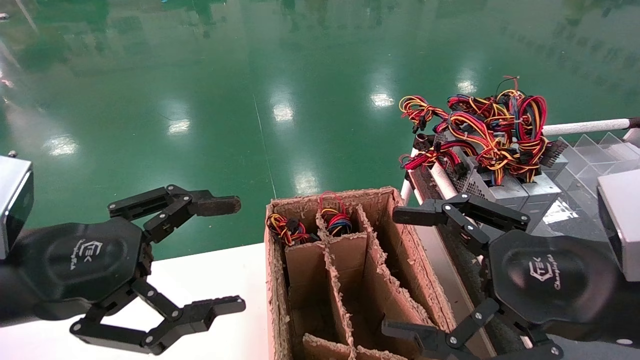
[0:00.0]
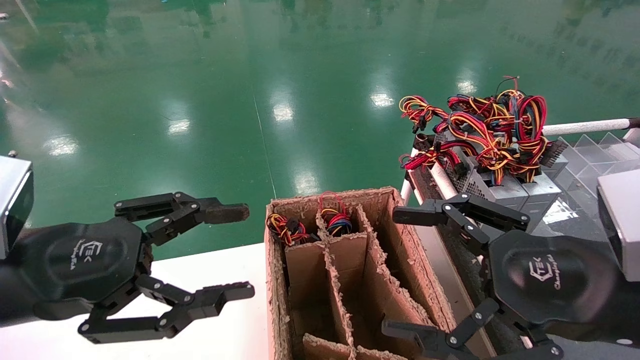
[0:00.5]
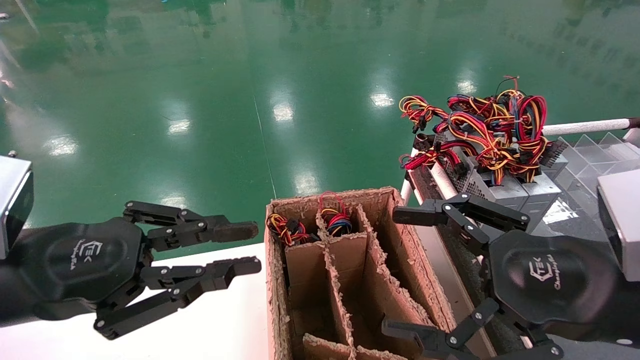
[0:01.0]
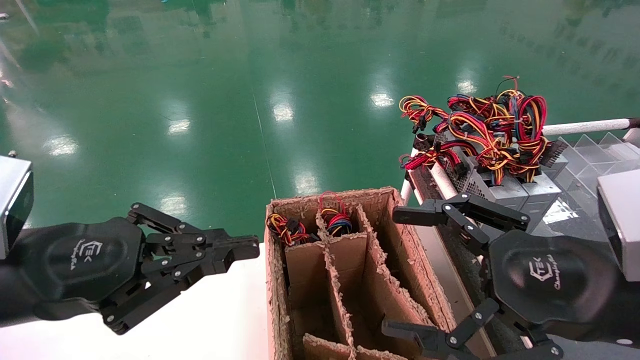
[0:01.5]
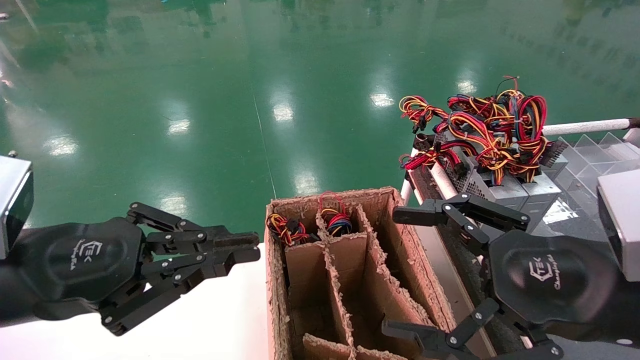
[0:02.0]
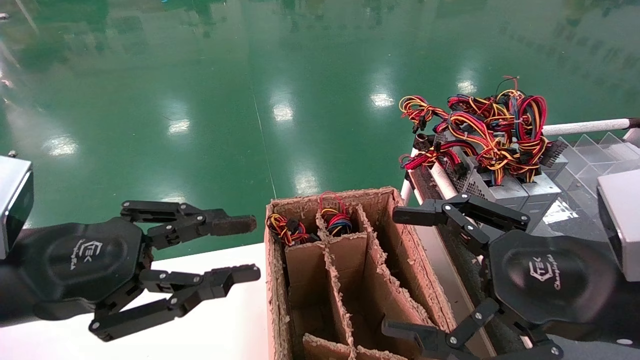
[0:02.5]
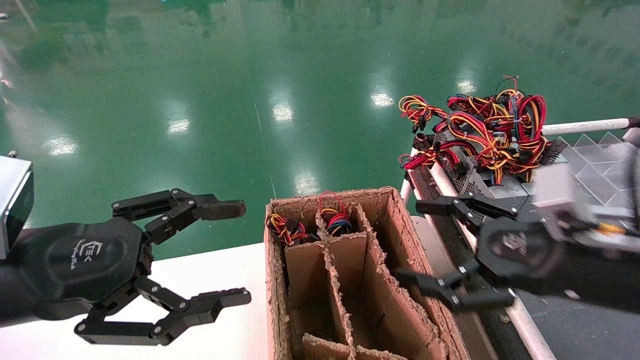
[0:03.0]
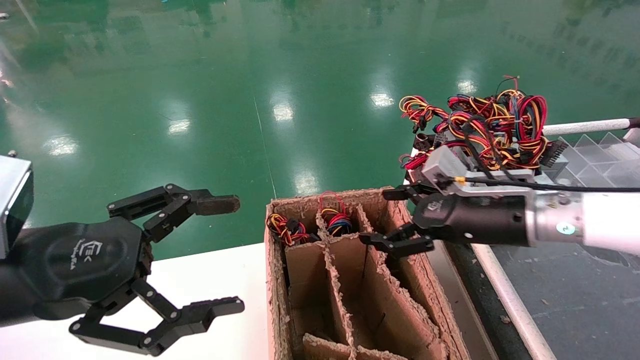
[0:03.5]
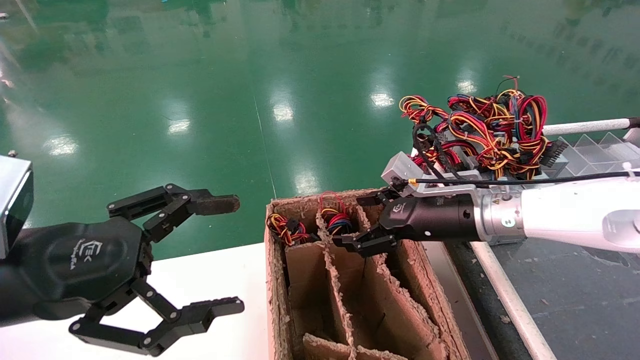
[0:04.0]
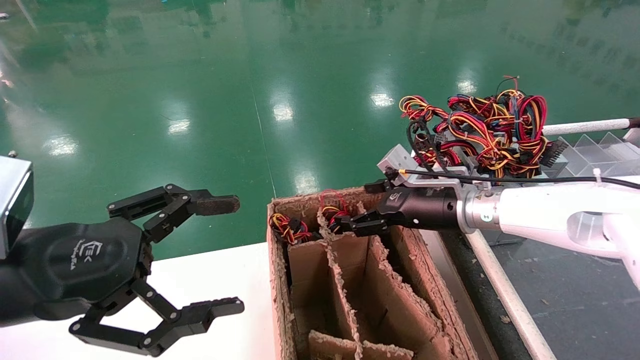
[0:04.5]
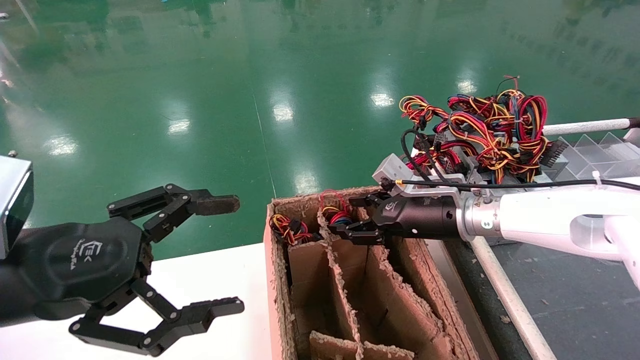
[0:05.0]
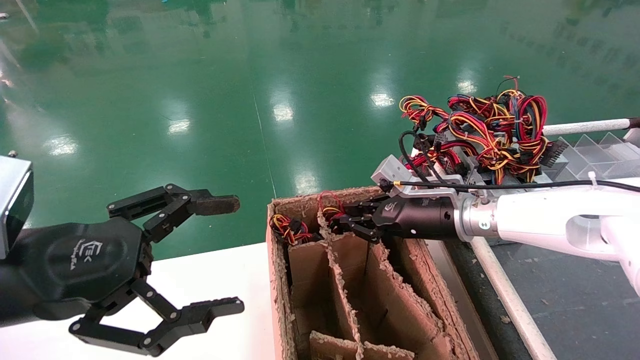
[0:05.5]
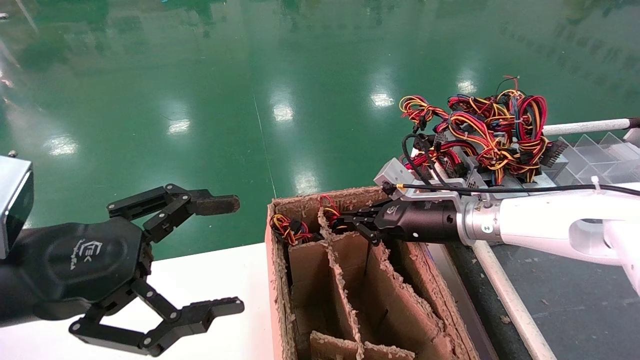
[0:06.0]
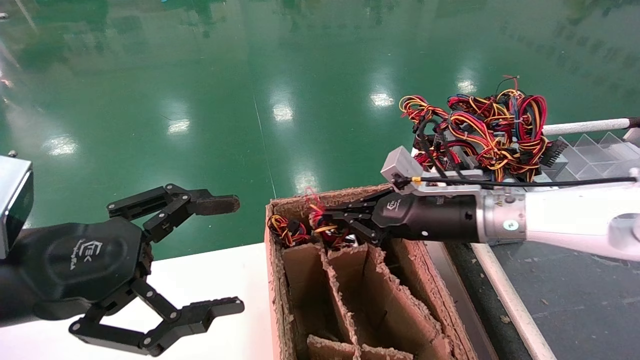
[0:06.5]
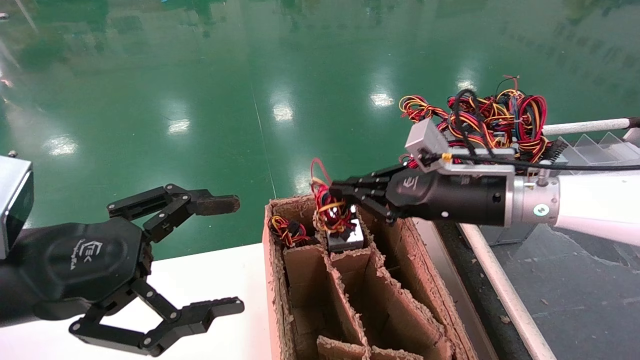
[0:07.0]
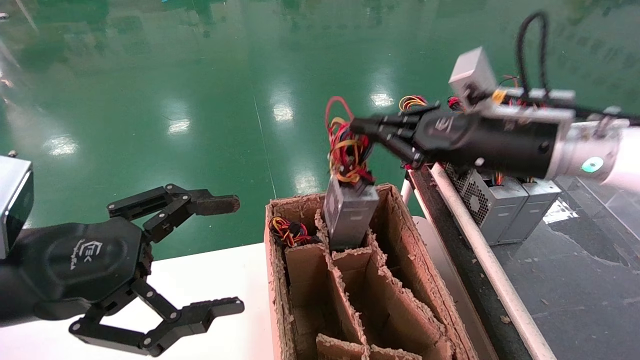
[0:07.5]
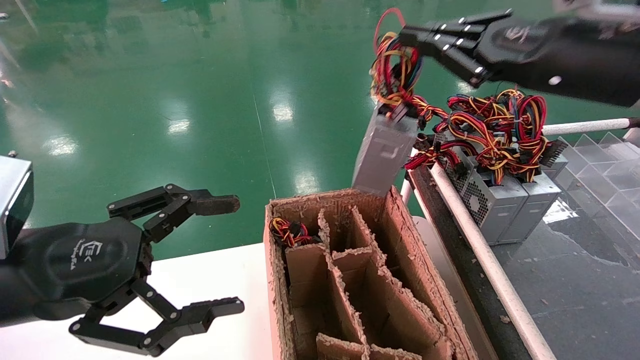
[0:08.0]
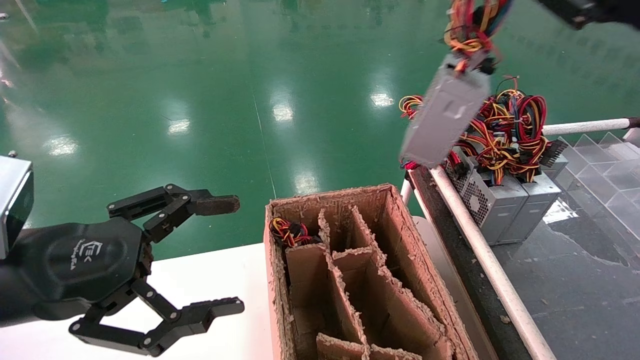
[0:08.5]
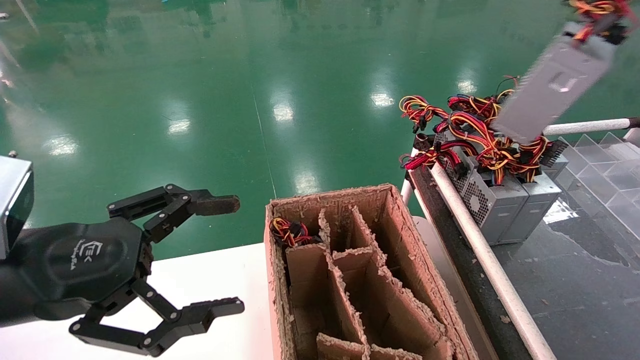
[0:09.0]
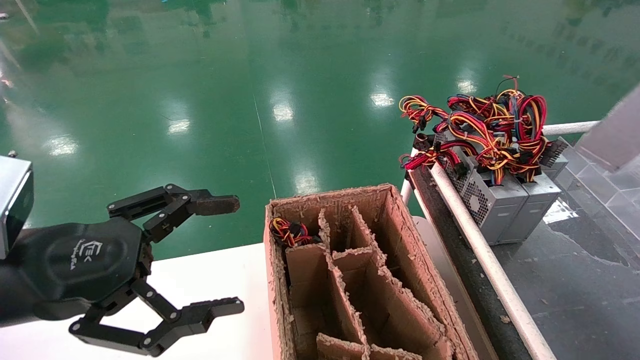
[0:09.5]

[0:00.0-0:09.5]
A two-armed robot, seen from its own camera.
Step, 0:01.0 to 0:05.5: Grab and lift the power supply from the large box.
0:00.0 to 0:02.0: The left gripper closes up.
0:02.0 to 0:04.0: The right gripper travels forward by about 20 cm, while the left gripper opens.
0:04.0 to 0:05.5: The right gripper closes.
0:05.5 to 0:07.5: The right gripper moves upward, backward and to the right, some 15 cm.
0:07.5 to 0:09.5: The right gripper shifts approximately 35 cm to the right and backward.

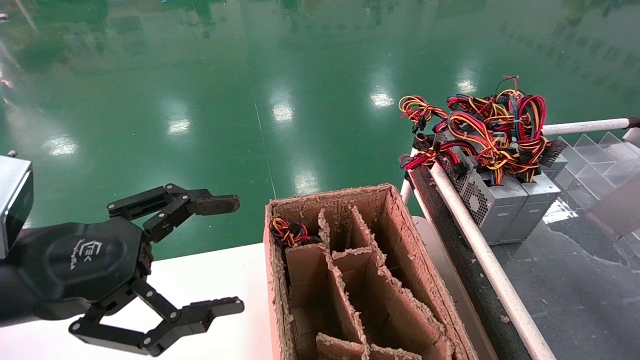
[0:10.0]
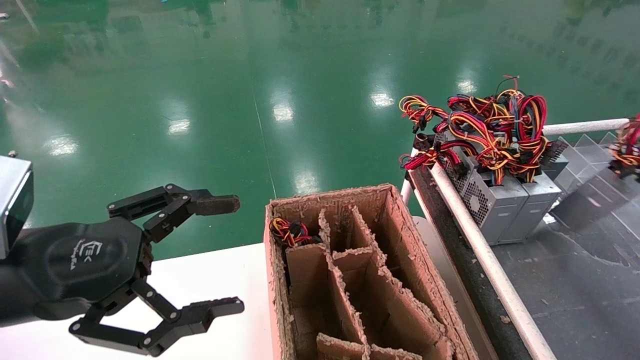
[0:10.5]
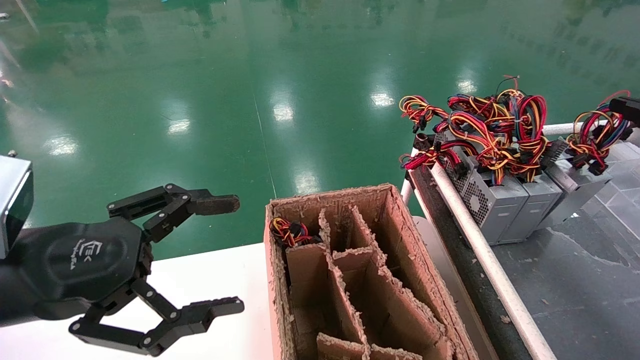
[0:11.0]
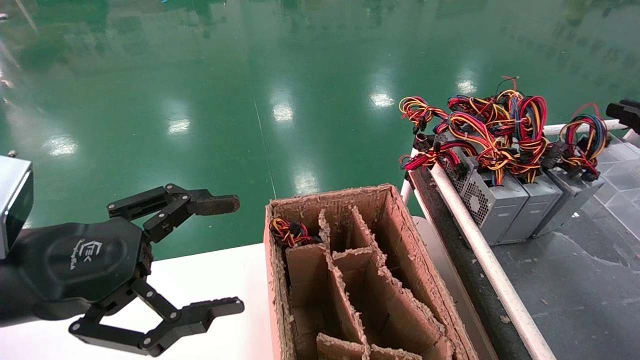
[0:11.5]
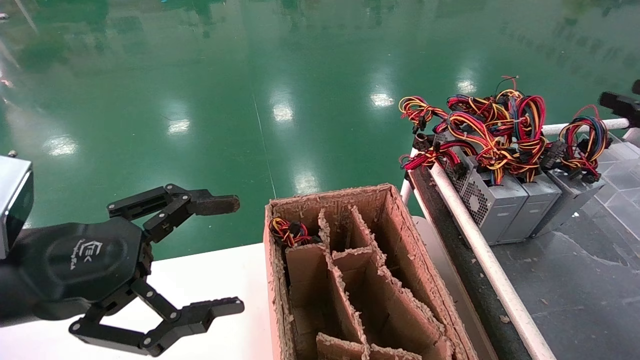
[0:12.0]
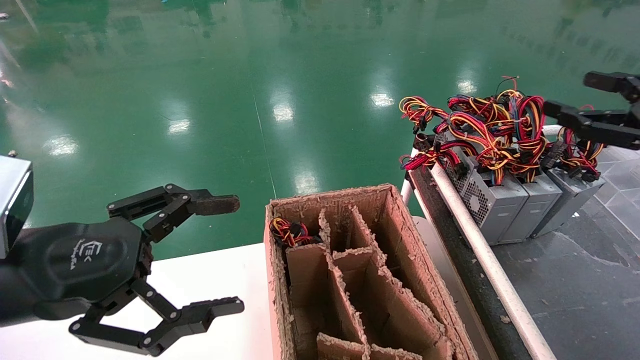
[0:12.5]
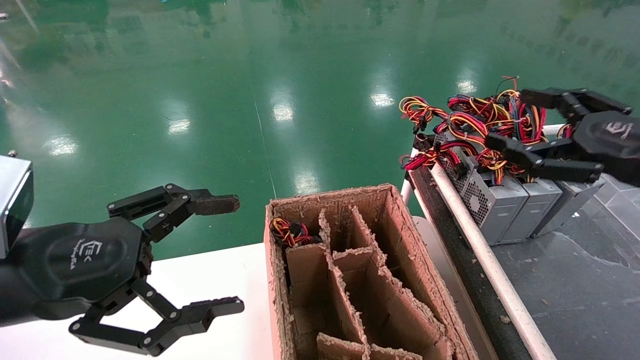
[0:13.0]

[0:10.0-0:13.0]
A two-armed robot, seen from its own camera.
0:10.0 to 0:11.5: The right gripper travels forward by approximately 10 cm.
0:11.5 to 0:13.0: The right gripper moves to the left, approximately 15 cm, and opens.

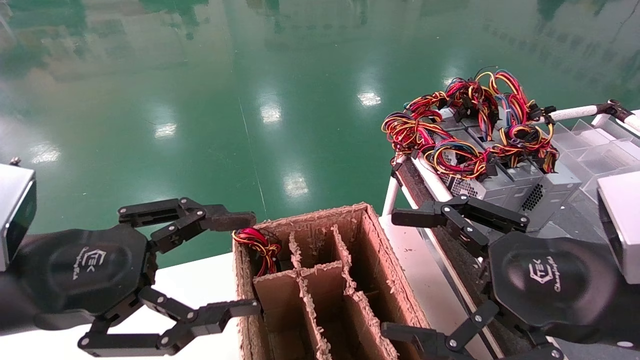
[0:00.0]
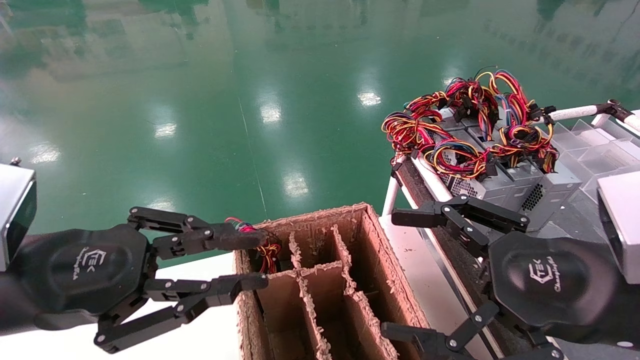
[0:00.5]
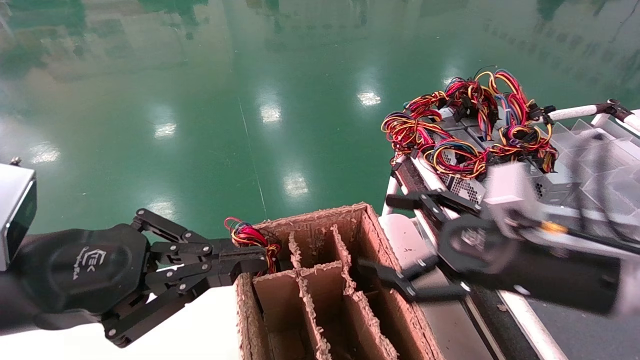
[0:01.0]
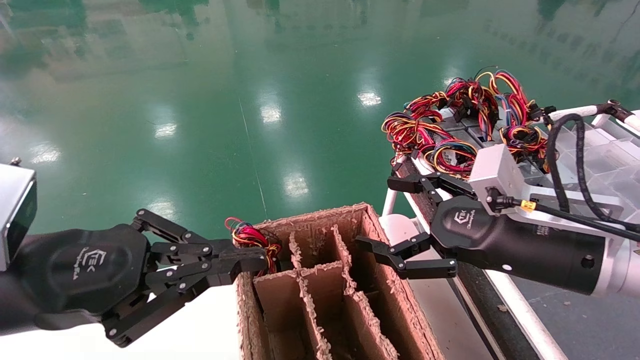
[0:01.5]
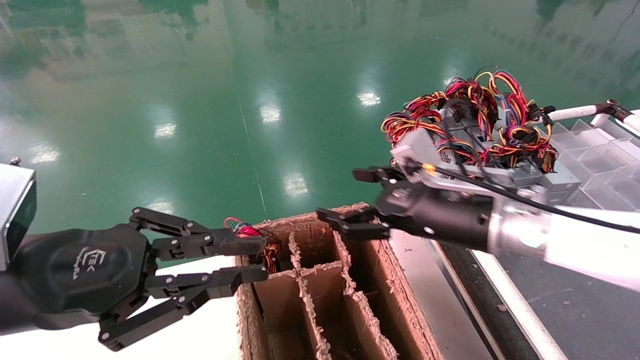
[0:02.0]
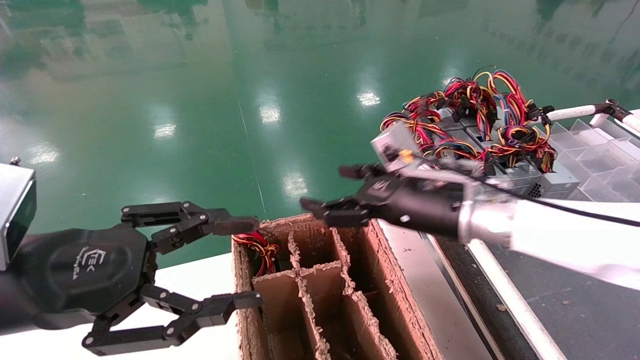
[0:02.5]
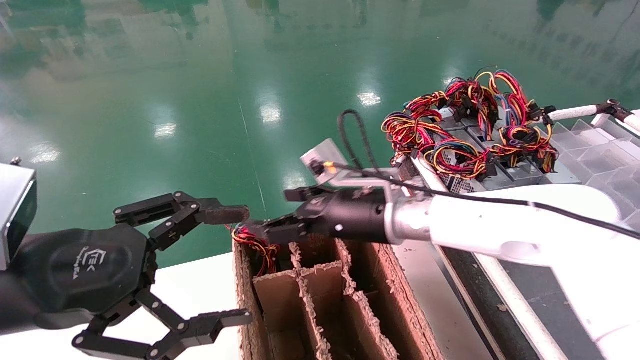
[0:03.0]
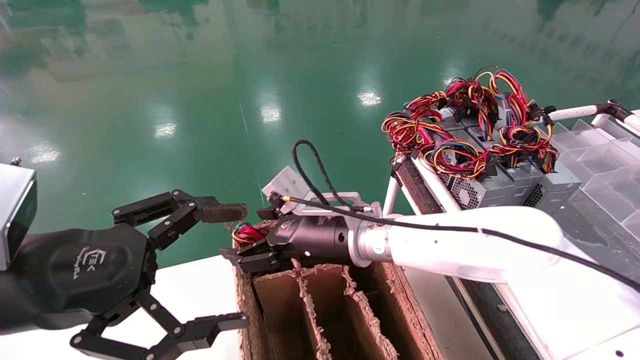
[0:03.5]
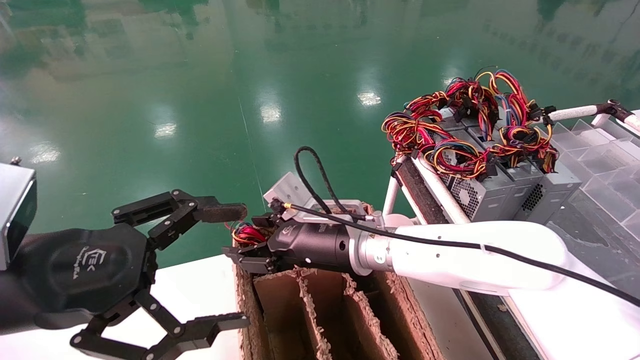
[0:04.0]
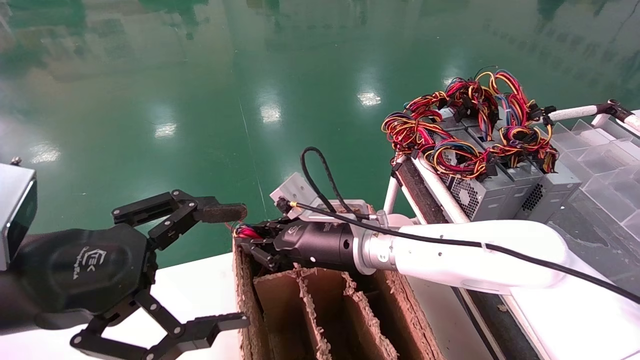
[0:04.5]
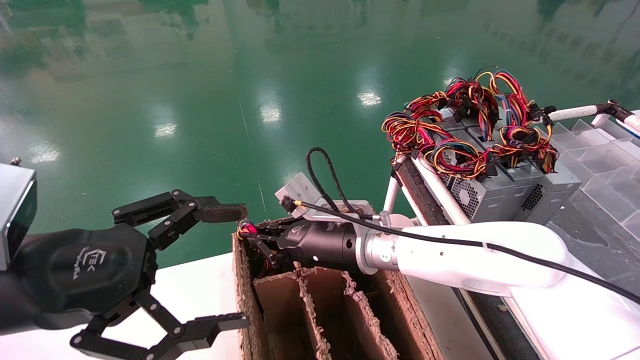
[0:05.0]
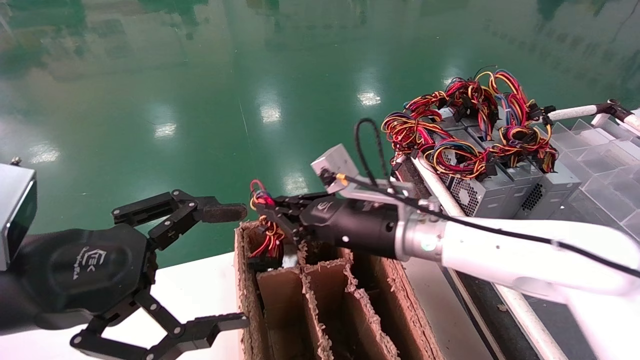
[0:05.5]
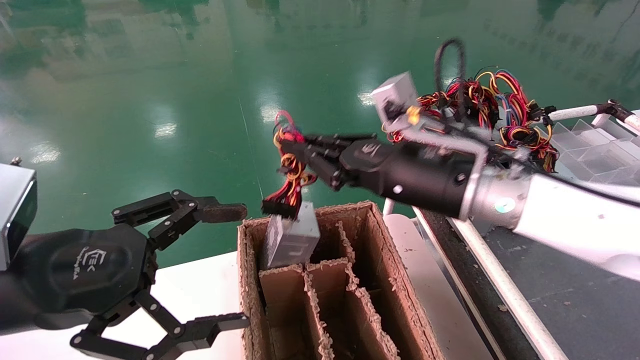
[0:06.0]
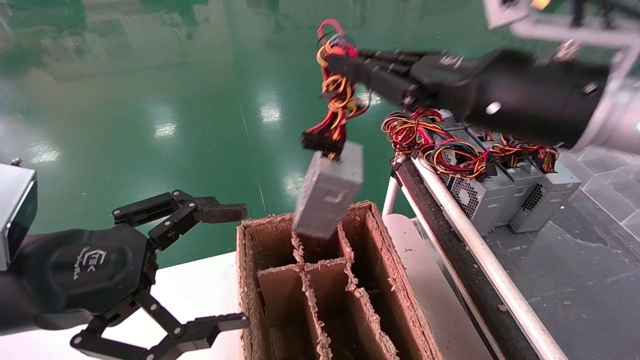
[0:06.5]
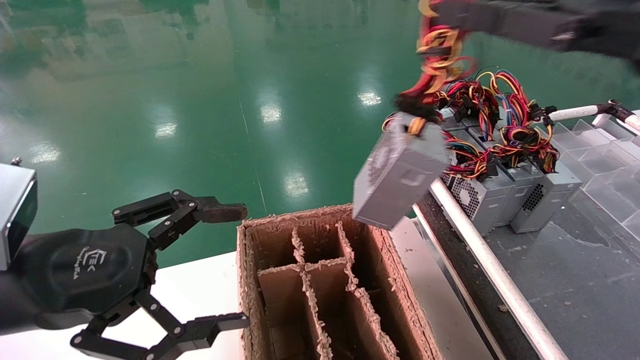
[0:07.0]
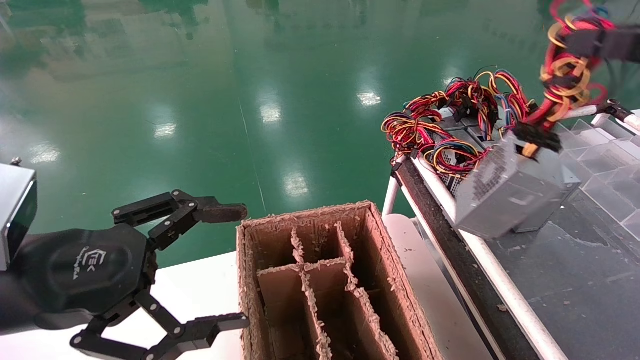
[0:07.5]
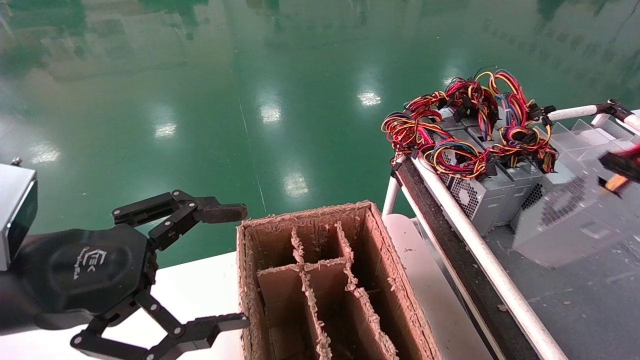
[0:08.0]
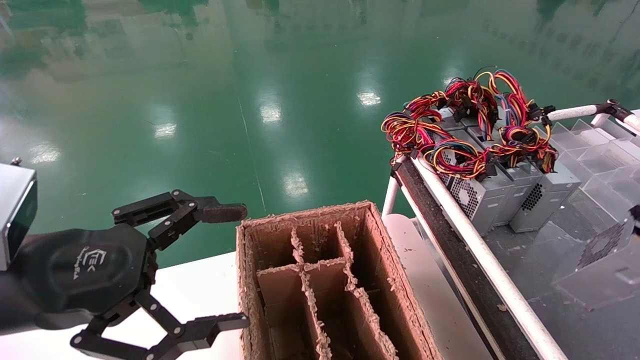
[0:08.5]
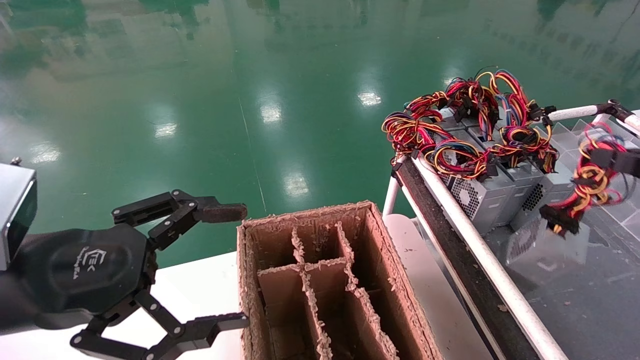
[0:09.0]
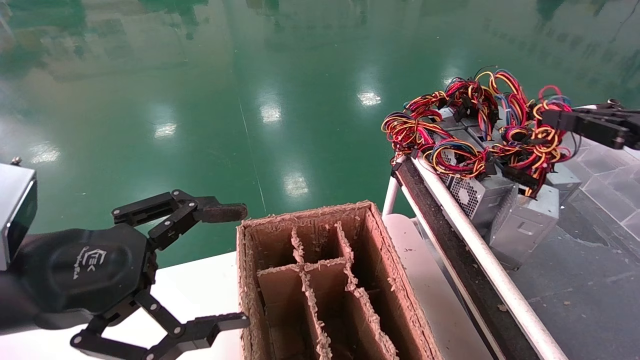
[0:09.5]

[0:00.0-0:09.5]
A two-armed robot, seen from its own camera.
Step, 0:02.0 to 0:05.0: Grab and lift the power supply from the large box.
0:00.0 to 0:02.0: The right gripper moves forward and to the left, about 15 cm. The left gripper closes.
0:02.0 to 0:04.0: The right gripper shifts about 15 cm to the left; the left gripper opens up.
0:04.0 to 0:05.5: The right gripper travels to the right by about 5 cm, and closes its fingers.
0:05.5 to 0:07.5: The right gripper shifts roughly 40 cm to the right, upward and backward.
0:07.5 to 0:09.5: The right gripper shifts about 10 cm forward and downward.
